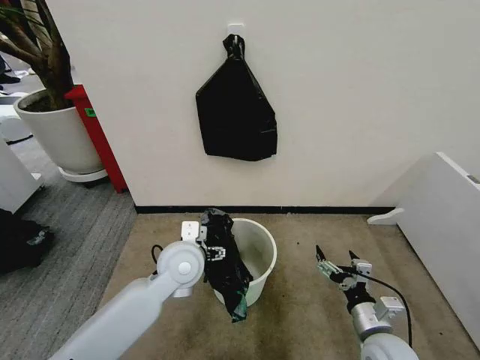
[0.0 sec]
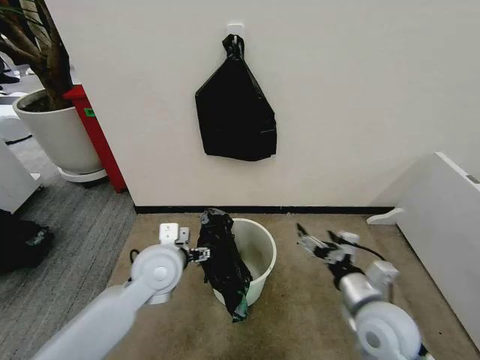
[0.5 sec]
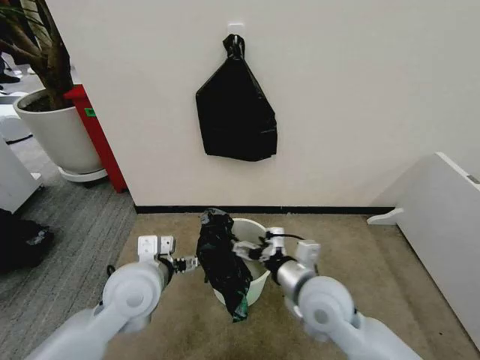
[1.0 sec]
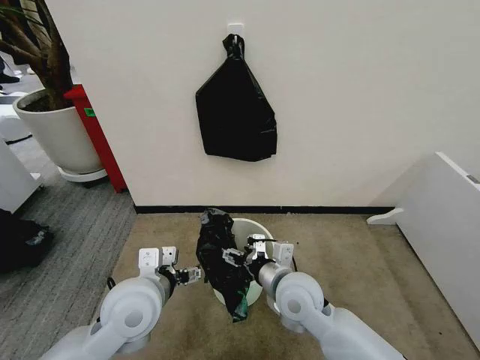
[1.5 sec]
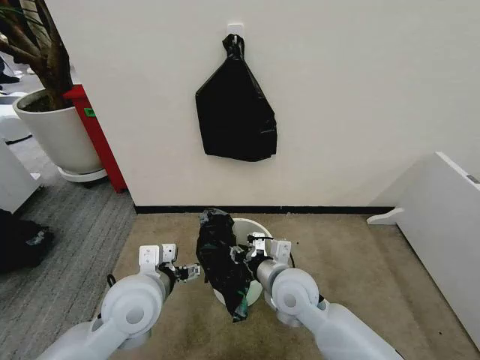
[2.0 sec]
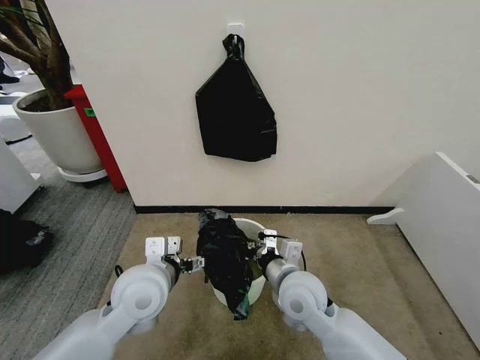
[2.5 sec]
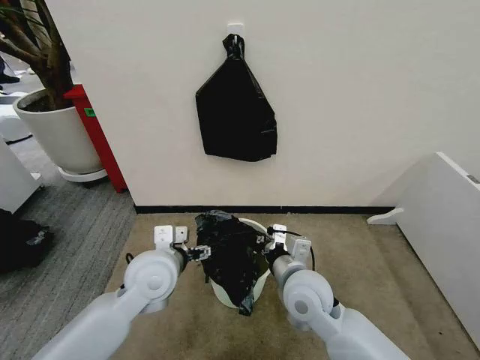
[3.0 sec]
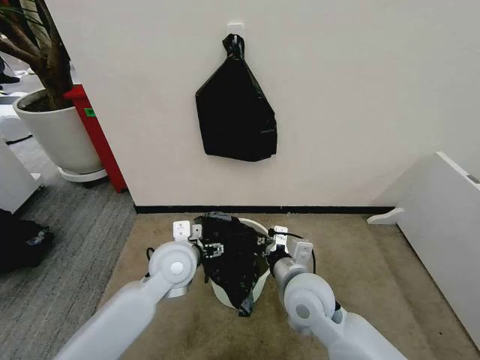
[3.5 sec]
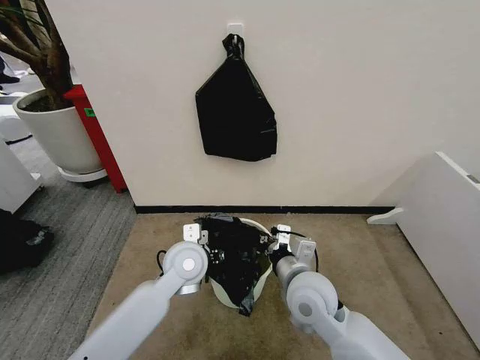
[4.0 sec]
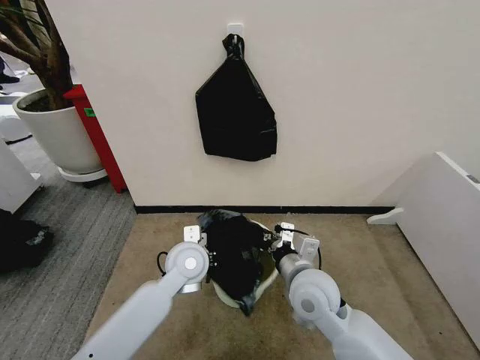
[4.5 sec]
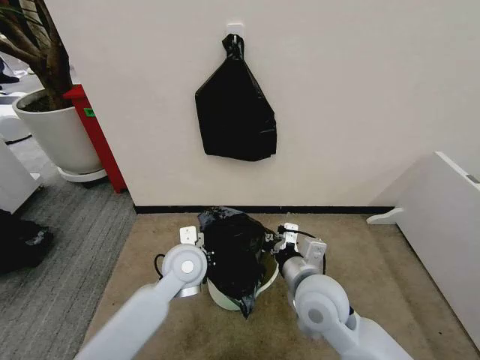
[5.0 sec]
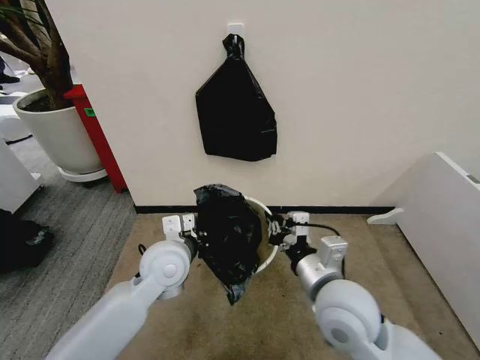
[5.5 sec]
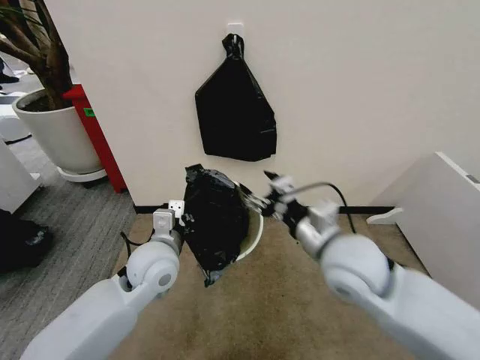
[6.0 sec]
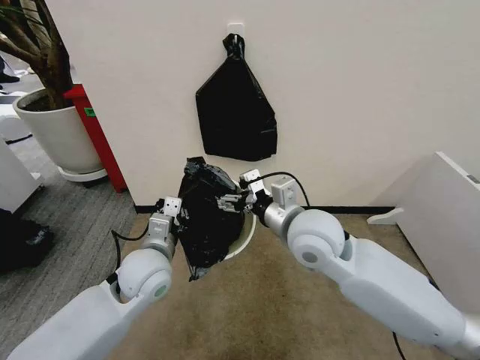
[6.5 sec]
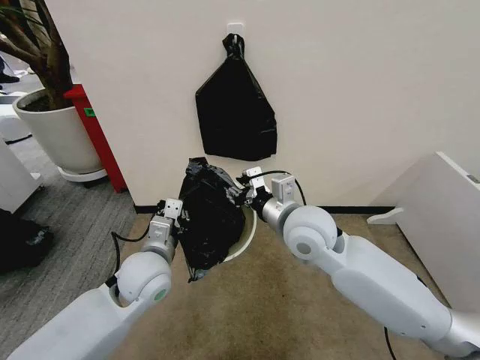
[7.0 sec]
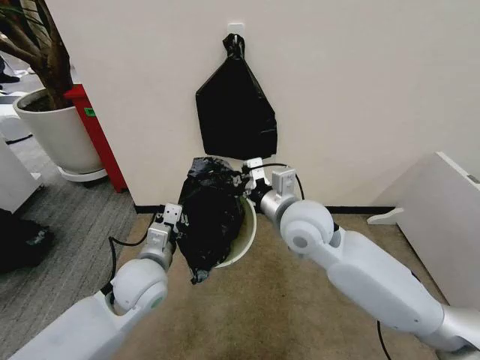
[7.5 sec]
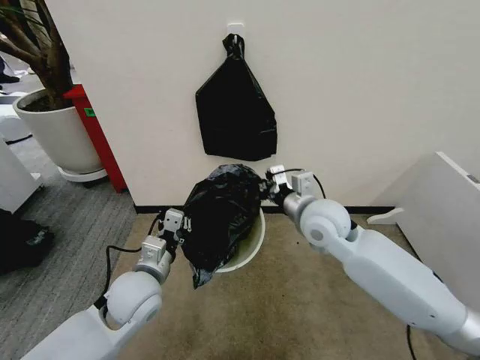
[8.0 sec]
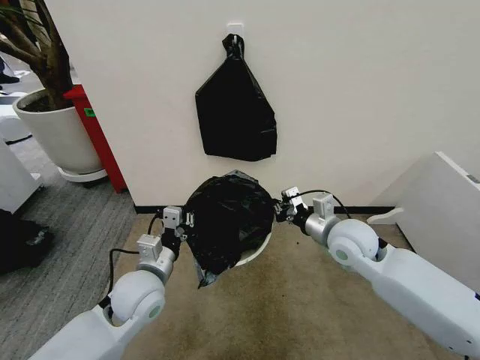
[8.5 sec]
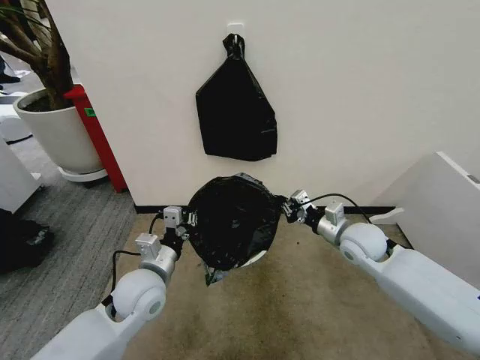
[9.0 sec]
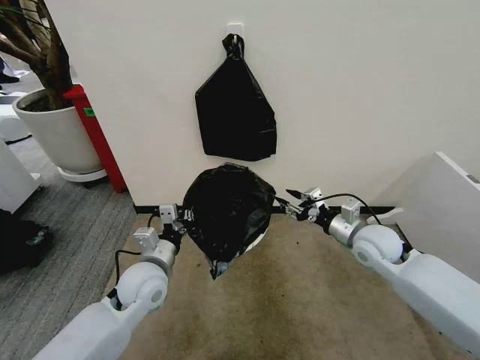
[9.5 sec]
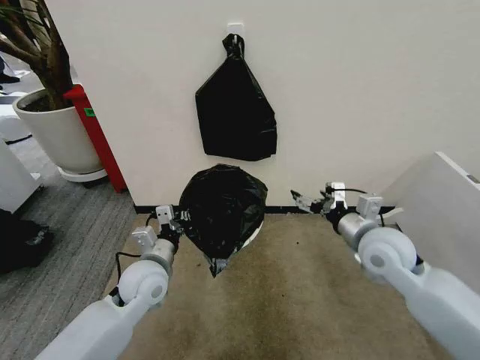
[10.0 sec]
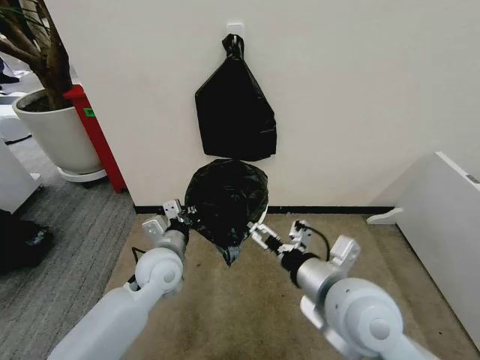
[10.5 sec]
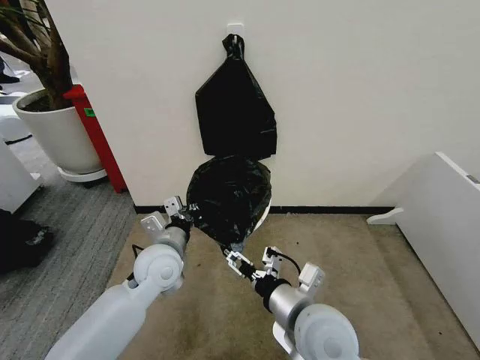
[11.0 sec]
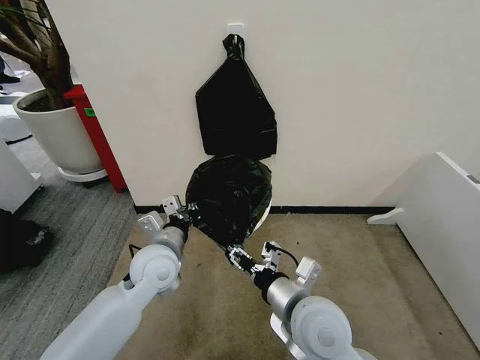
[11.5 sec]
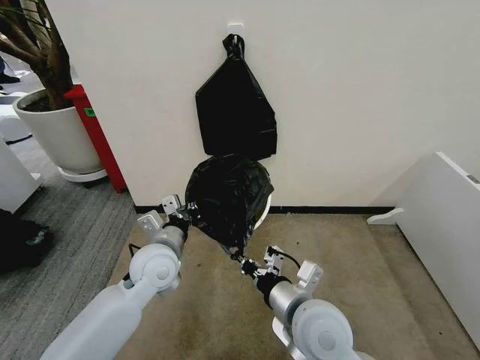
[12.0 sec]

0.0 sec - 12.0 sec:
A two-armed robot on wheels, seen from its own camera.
Task of the whole recording: Place the garbage bag over the trash bin.
0.0 sec - 2.0 sec: The left gripper goes some 10 cm backward and to the left, while the right gripper goes approximately 25 cm to the left, forward and upward, and closes up.
2.0 sec - 4.0 sec: The left gripper goes roughly 10 cm forward and to the right, and closes.
4.0 sec - 6.0 sec: The left gripper is displaced to the left by approximately 5 cm, and closes its fingers; the right gripper is displaced upward by roughly 10 cm, and opens up.
6.0 sec - 8.0 sec: The left gripper moves approximately 5 cm. Meanwhile the right gripper heads forward, covering some 10 cm, and closes.
8.0 sec - 10.0 sec: The right gripper moves to the right, approximately 10 cm, and opens.
10.0 sec - 12.0 sec: The right gripper goes approximately 20 cm to the left and backward, and closes. Meanwhile the left gripper moves about 5 cm.

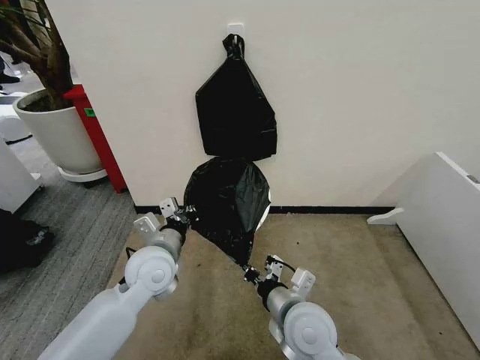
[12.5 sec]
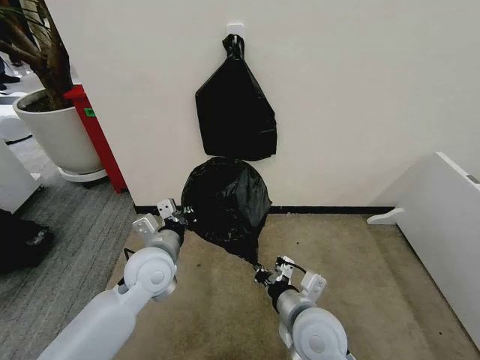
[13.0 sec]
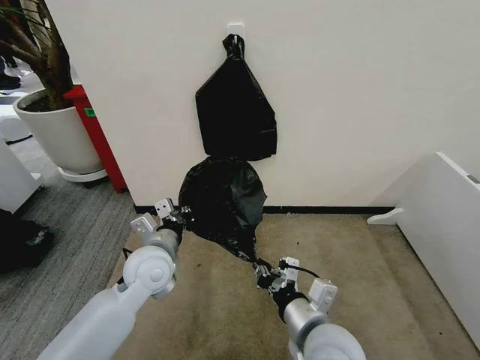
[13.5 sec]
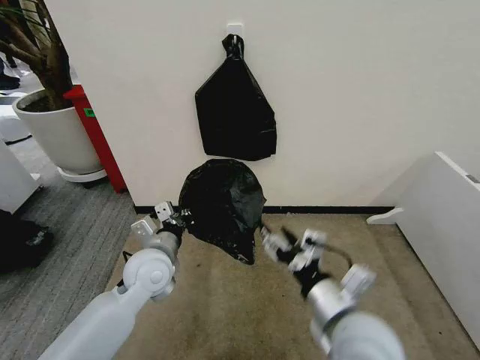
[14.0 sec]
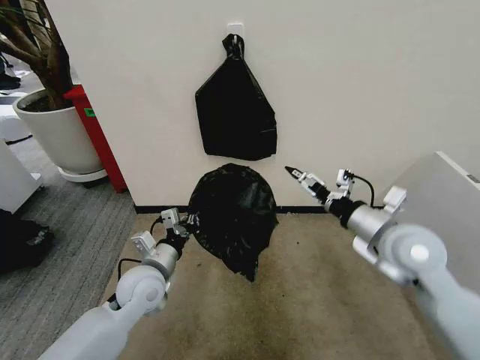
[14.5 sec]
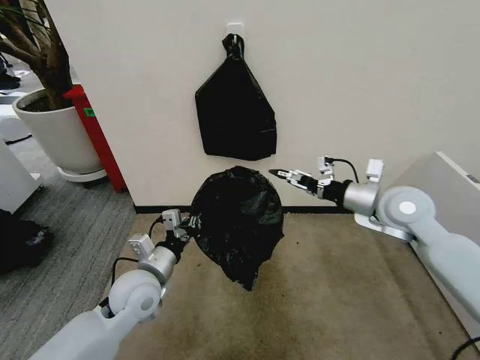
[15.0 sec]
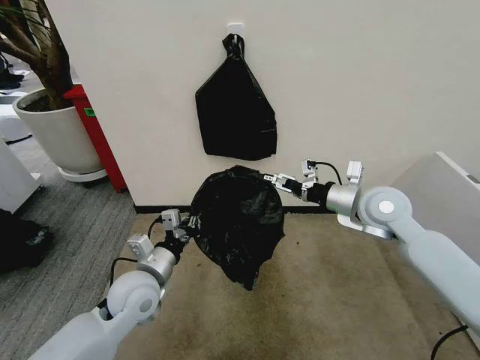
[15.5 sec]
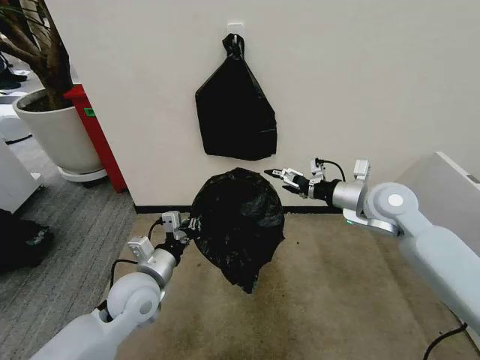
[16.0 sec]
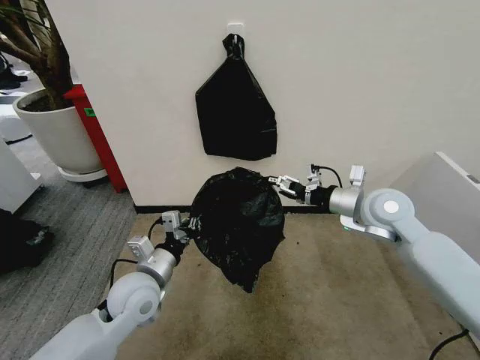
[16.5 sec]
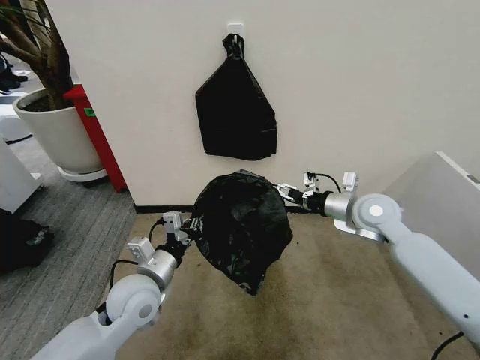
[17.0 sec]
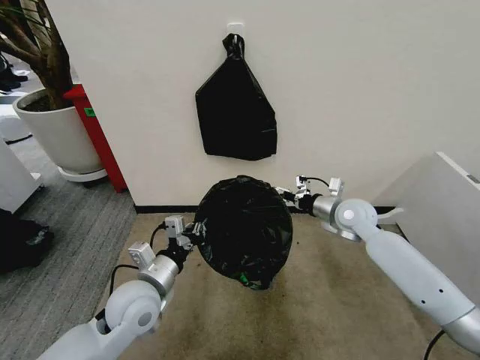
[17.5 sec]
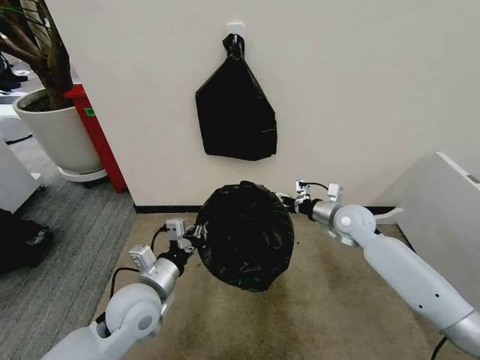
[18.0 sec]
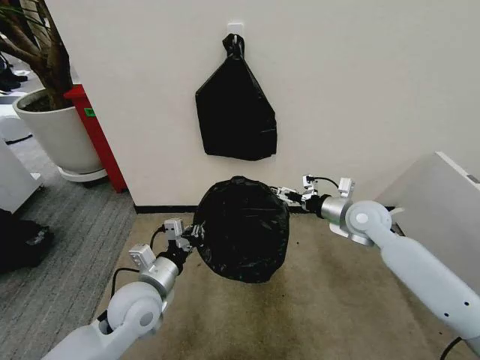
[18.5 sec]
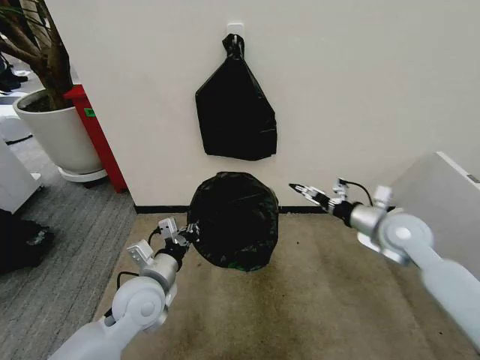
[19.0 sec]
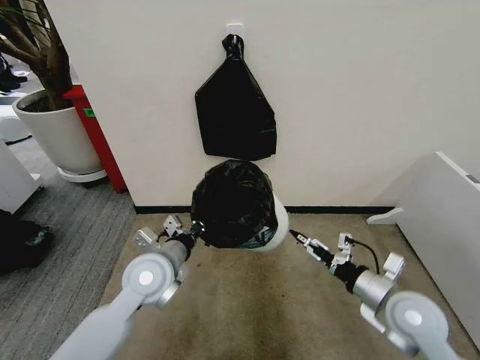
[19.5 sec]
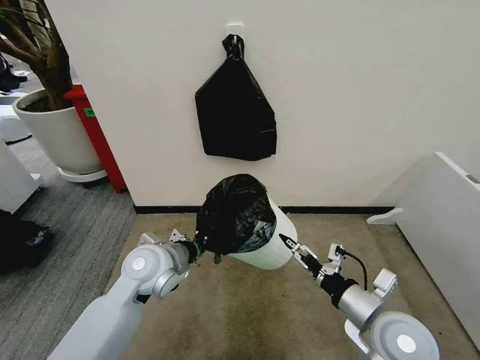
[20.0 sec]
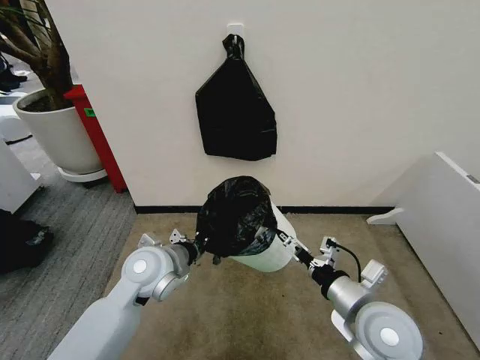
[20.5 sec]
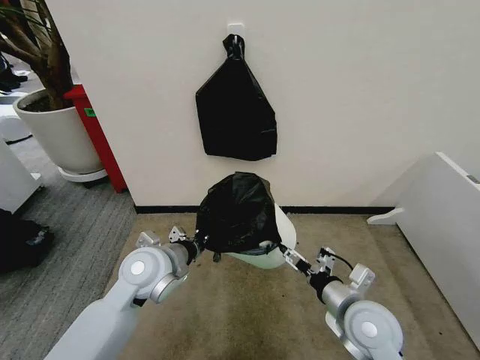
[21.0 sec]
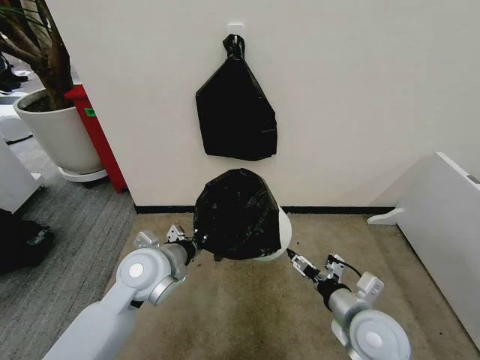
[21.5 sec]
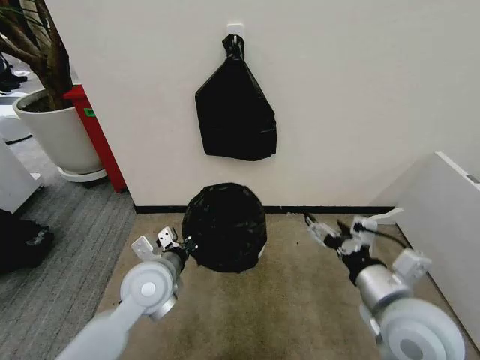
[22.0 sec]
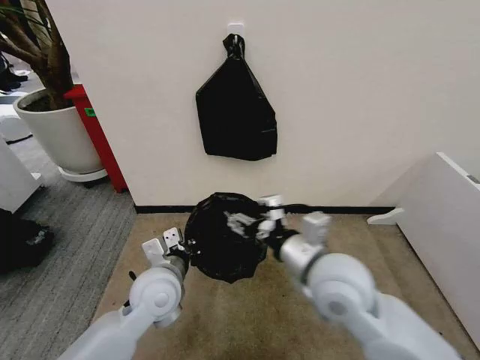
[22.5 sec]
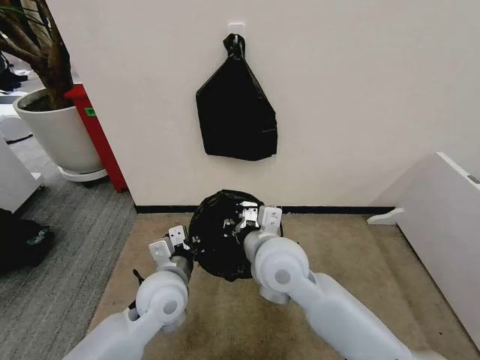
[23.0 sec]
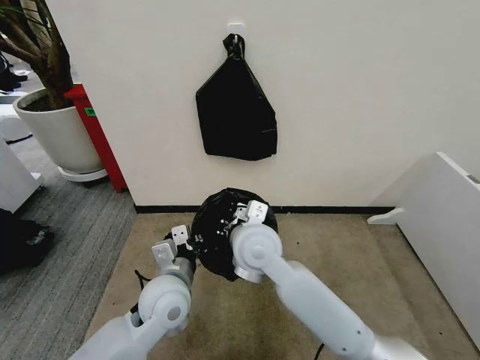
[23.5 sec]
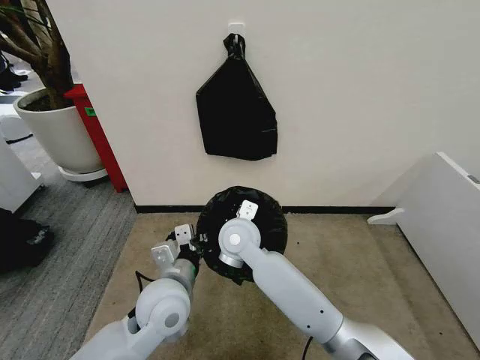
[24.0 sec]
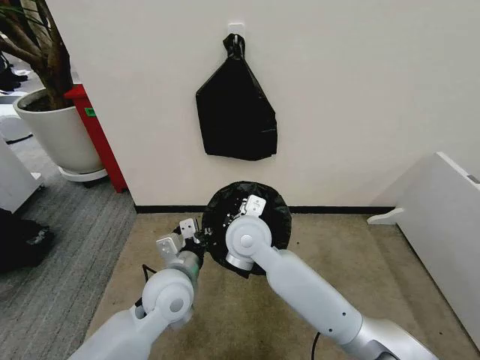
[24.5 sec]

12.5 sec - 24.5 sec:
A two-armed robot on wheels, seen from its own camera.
Task of the whole recording: Place the garbage bag over the trash bin.
12.5 sec - 14.5 sec: The right gripper heads to the right, upward and forward, covering some 25 cm, and opens up; the left gripper shifts roughly 5 cm downward.
14.5 sec - 16.5 sec: The right gripper is displaced forward by some 10 cm.
16.5 sec - 18.5 sec: The right gripper shifts roughly 5 cm downward.
18.5 sec - 20.5 sec: The left gripper shifts some 5 cm forward; the right gripper travels backward by roughly 25 cm.
20.5 sec - 22.5 sec: The right gripper moves upward and to the left, about 10 cm.
22.5 sec - 24.5 sec: The right gripper goes roughly 20 cm to the left and forward, and closes.

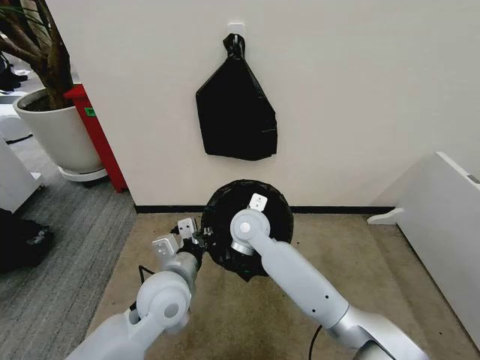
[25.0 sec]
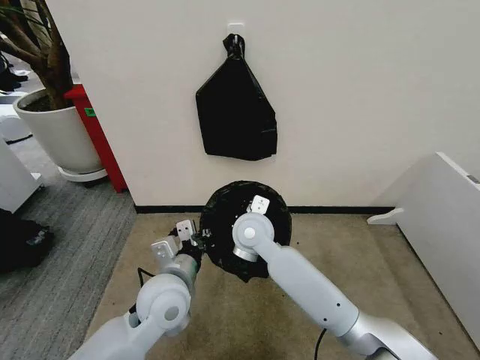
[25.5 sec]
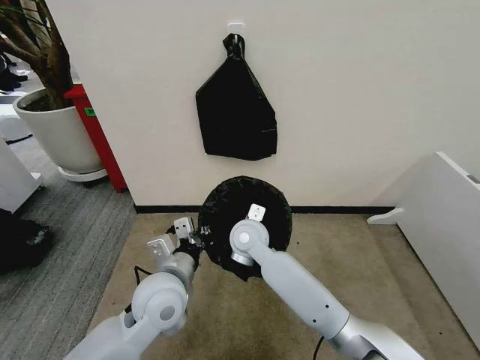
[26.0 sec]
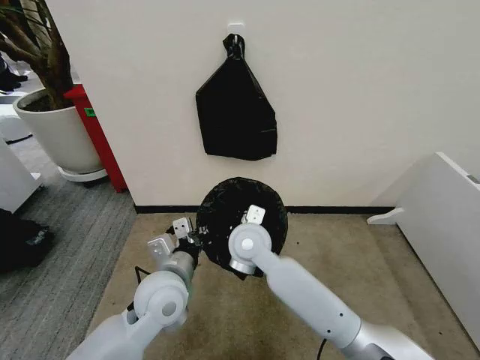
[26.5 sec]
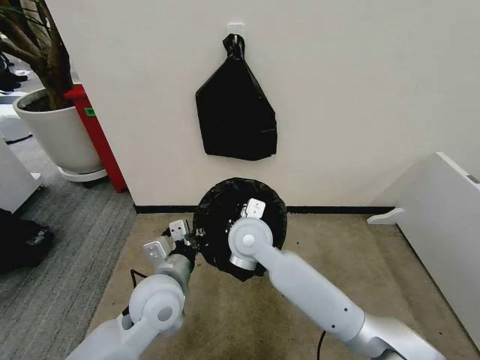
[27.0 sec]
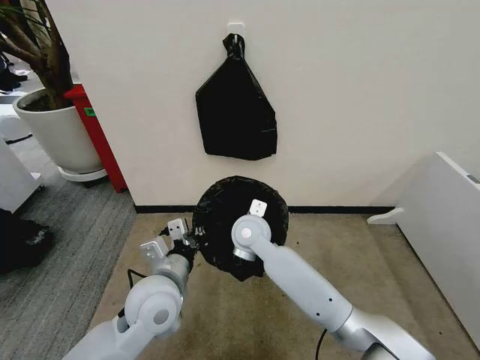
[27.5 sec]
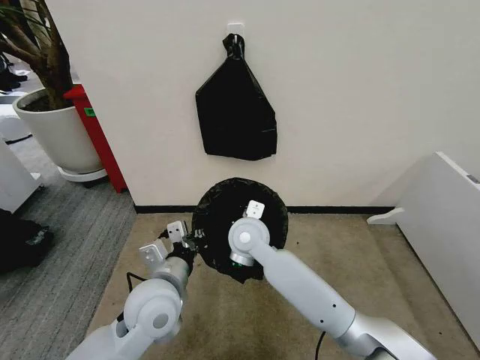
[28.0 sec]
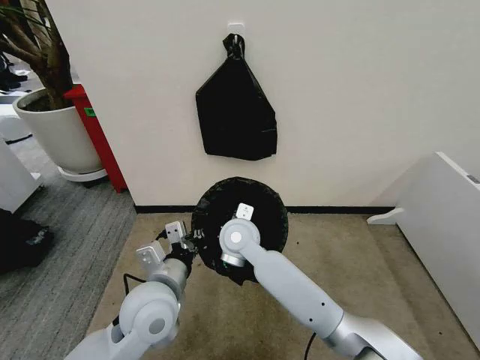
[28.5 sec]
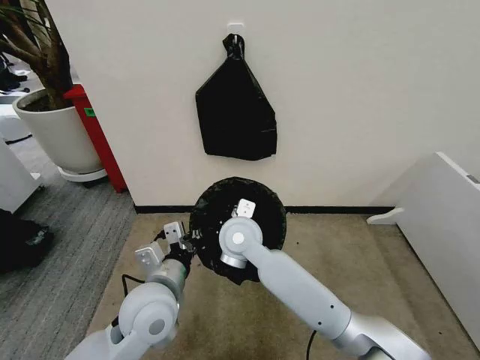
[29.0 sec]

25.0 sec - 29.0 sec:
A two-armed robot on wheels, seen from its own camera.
Task of the whole recording: Place the garbage bag over the trash bin.
25.0 sec - 27.0 sec: The right gripper travels backward by about 5 cm.
